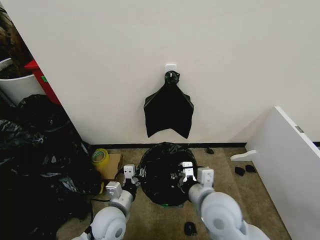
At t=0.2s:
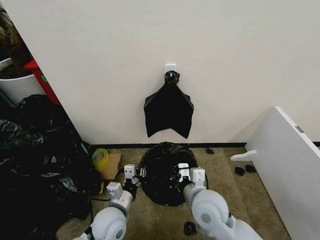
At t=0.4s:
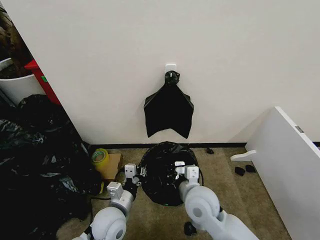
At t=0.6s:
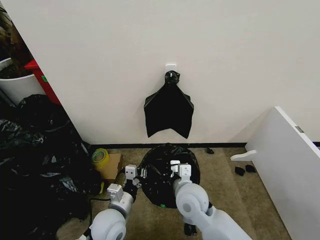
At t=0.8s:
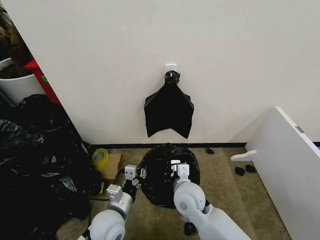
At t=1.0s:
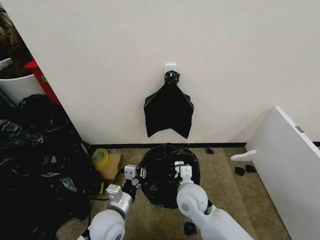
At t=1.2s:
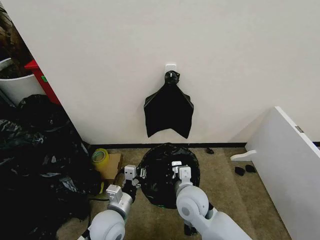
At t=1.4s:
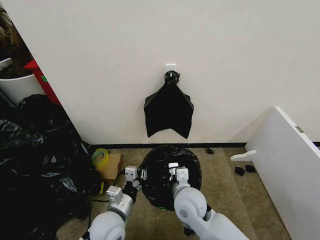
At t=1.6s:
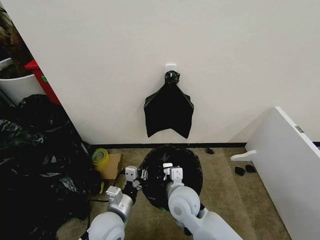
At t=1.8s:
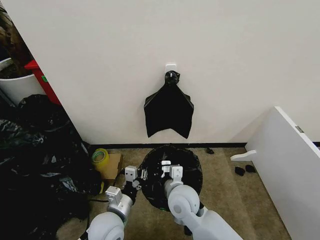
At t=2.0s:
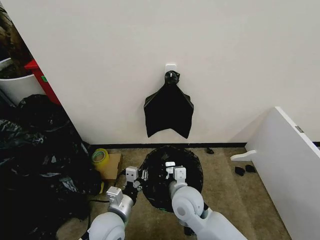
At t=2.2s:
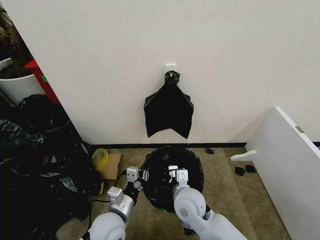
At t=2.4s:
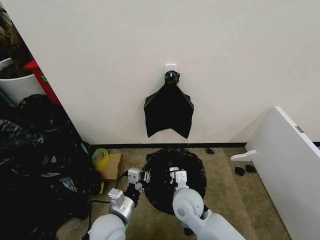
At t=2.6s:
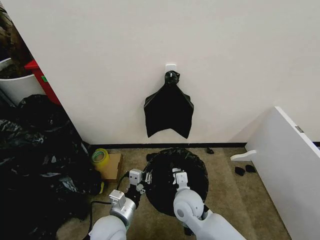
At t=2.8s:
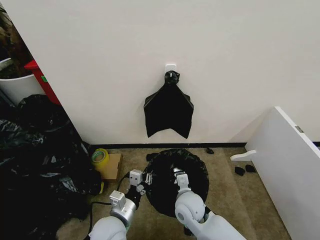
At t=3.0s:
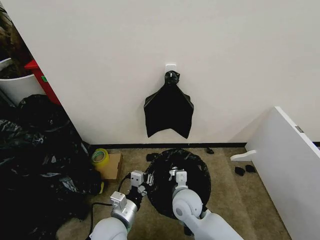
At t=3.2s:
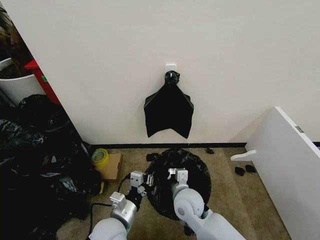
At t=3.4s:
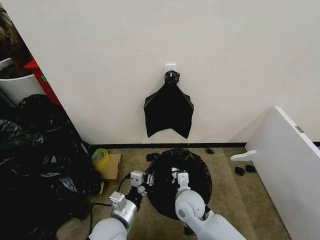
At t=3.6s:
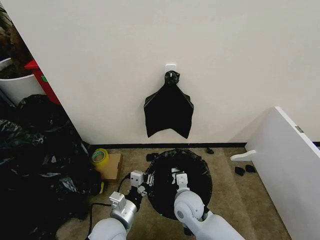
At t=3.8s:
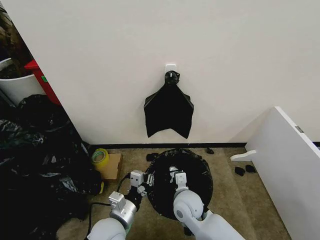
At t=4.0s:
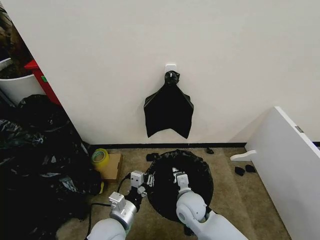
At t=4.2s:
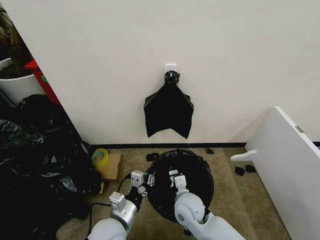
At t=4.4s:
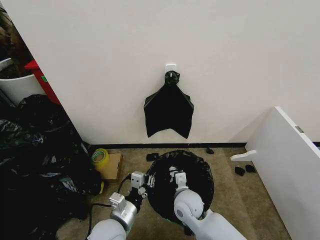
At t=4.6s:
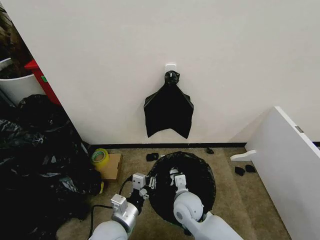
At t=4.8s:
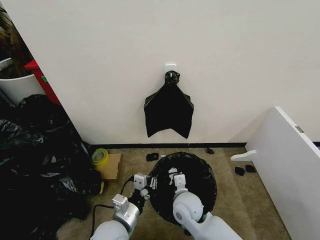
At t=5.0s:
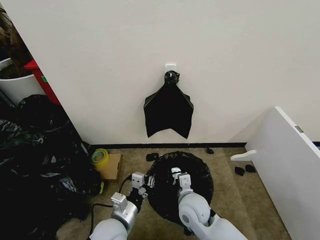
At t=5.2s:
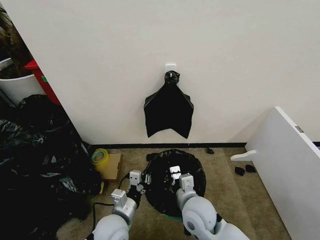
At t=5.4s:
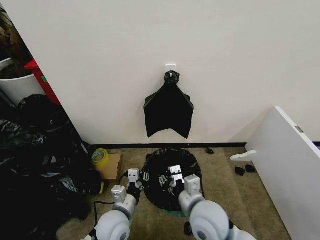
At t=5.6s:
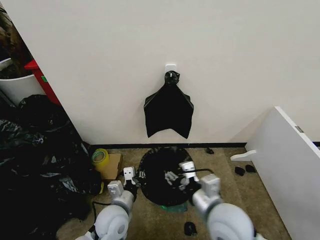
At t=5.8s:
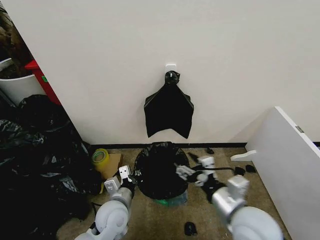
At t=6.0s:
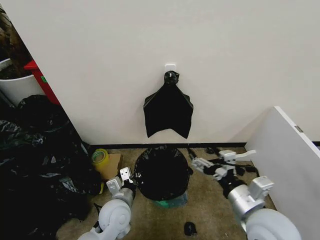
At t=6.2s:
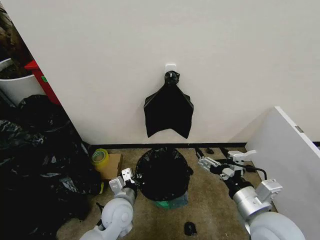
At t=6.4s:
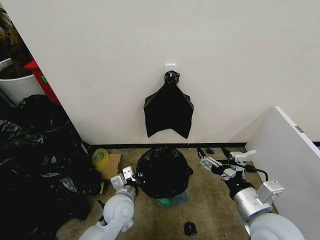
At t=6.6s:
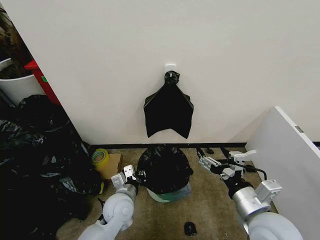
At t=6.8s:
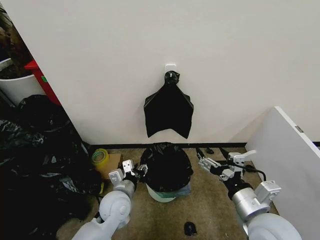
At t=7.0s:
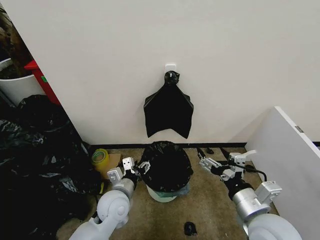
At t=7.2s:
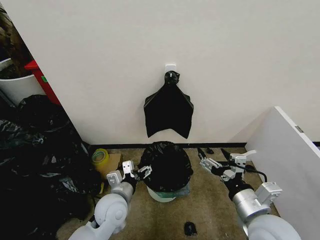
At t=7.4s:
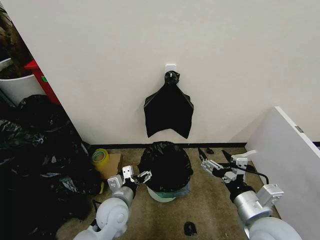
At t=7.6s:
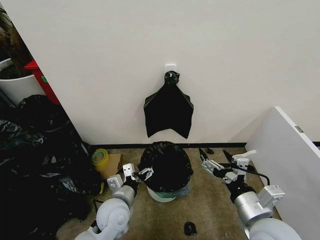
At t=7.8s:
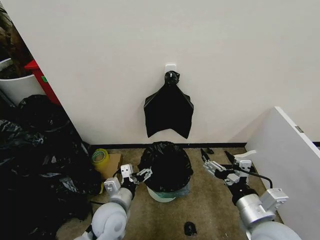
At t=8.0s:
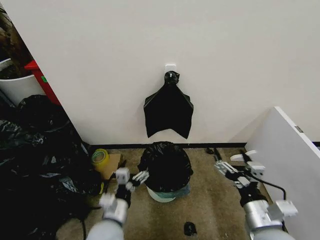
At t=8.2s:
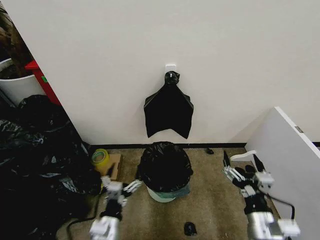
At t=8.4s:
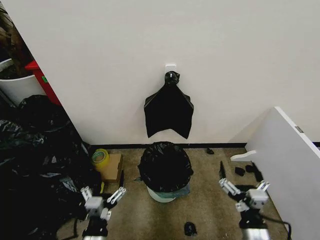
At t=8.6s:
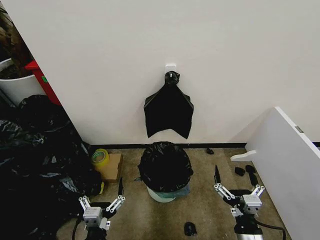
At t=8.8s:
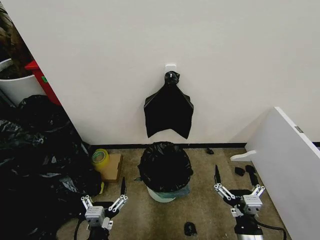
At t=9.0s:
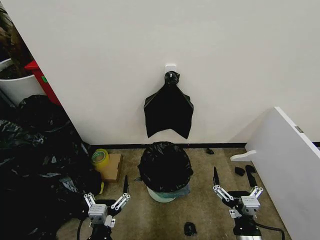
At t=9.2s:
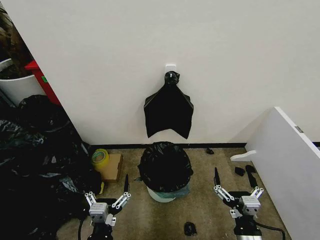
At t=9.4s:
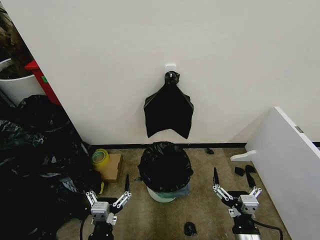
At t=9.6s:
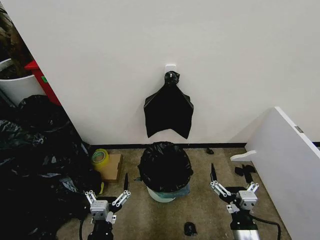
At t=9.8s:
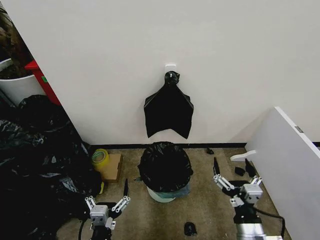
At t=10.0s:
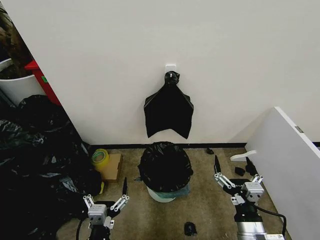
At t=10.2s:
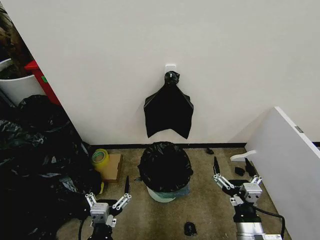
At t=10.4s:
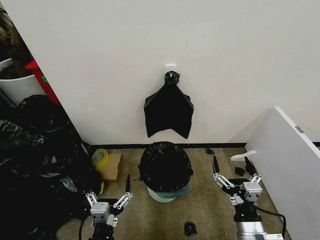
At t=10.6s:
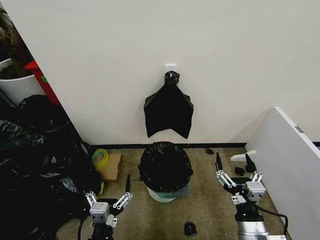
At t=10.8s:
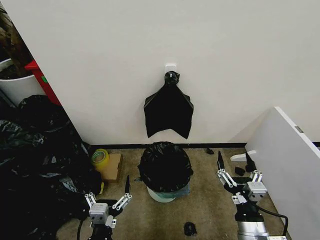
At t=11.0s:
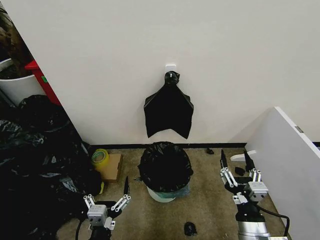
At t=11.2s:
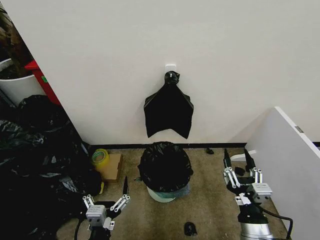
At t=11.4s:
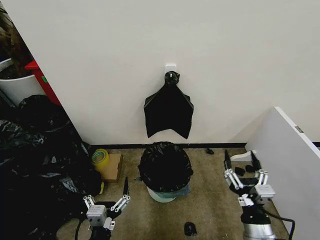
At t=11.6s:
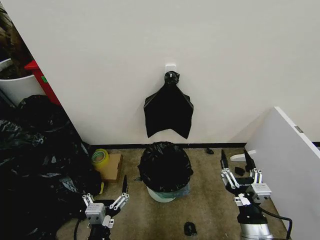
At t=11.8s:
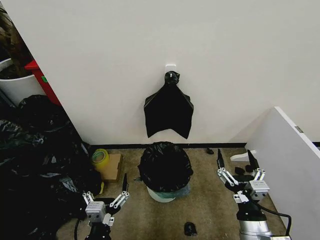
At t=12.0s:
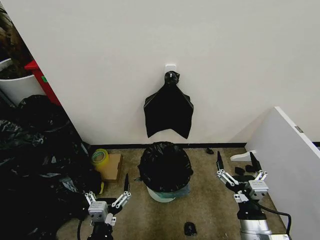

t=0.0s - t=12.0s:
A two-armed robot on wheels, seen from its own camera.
Task of the whole recording: Place the garbage bag over the trash bin.
t=0.0s - t=1.6s: The right gripper goes approximately 10 cm to the left and downward.
t=1.6s - t=3.0s: The grippers stay close to where they were, moving slightly.
t=3.0s - t=4.4s: The grippers make only small movements.
t=4.4s - t=6.0s: The left gripper moves forward, about 5 cm. The right gripper is displaced upward, to the right and backward by approximately 25 cm, and opens up.
t=6.0s - t=7.6s: The left gripper opens up.
t=7.6s - t=9.0s: The right gripper shifts roughly 15 cm downward and backward; the left gripper travels backward by roughly 15 cm.
t=9.0s - t=10.4s: The grippers stay close to where they were, moving slightly.
t=10.4s - t=12.0s: The right gripper closes, then reopens.

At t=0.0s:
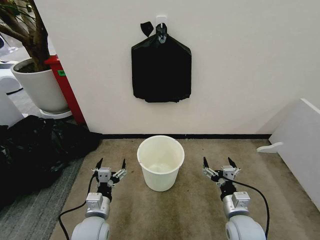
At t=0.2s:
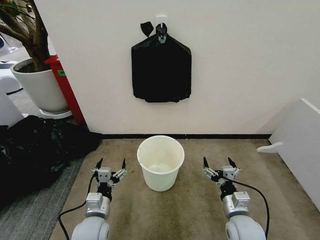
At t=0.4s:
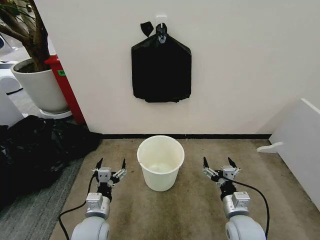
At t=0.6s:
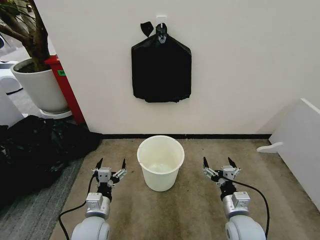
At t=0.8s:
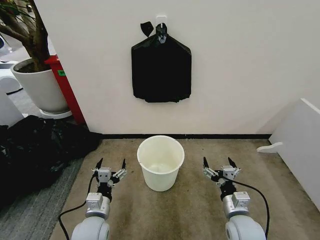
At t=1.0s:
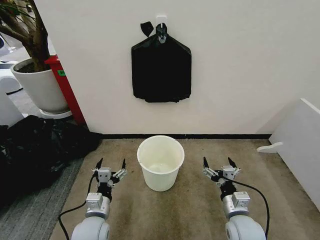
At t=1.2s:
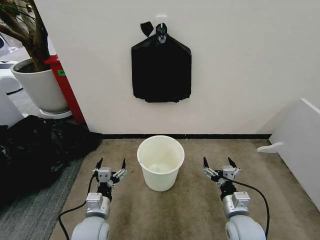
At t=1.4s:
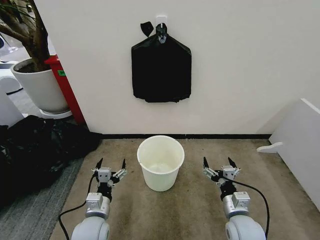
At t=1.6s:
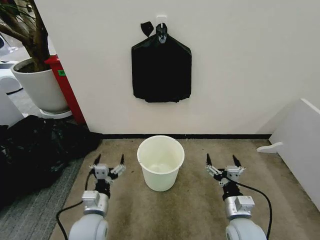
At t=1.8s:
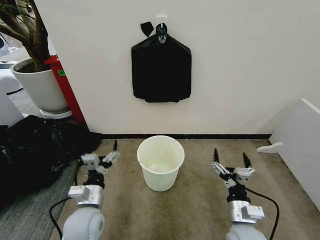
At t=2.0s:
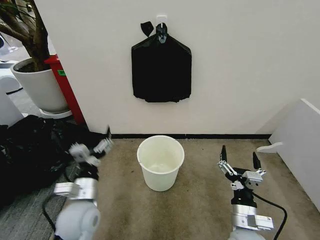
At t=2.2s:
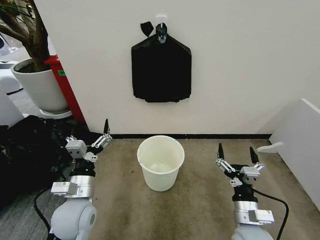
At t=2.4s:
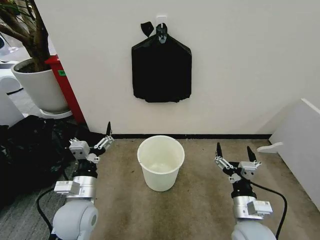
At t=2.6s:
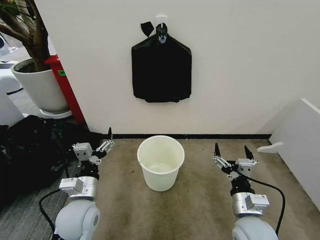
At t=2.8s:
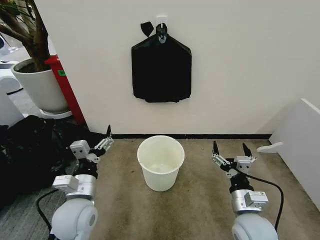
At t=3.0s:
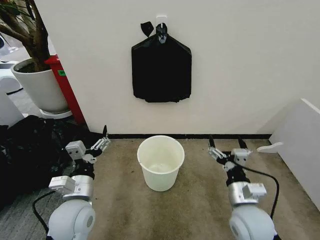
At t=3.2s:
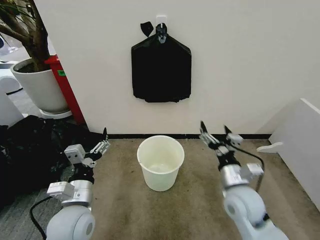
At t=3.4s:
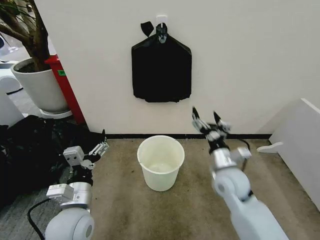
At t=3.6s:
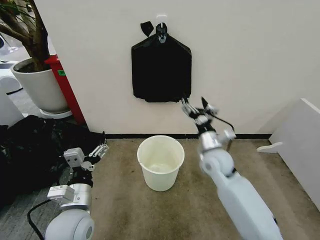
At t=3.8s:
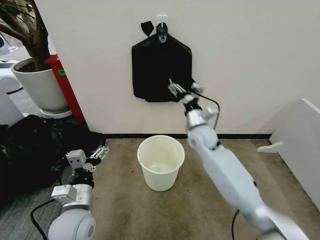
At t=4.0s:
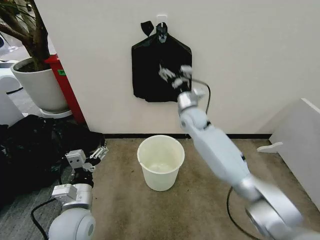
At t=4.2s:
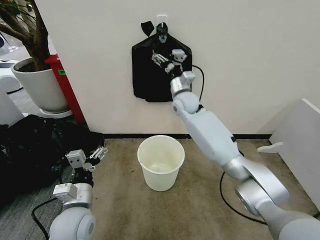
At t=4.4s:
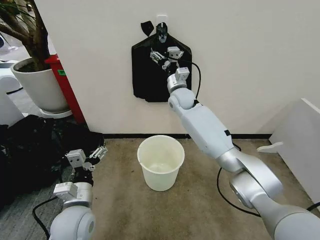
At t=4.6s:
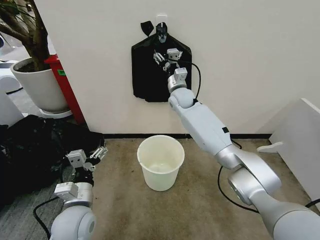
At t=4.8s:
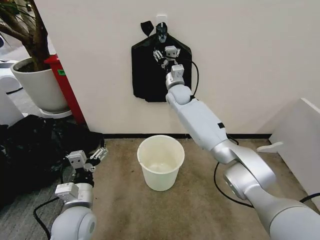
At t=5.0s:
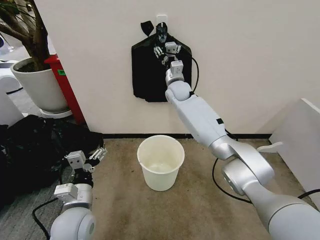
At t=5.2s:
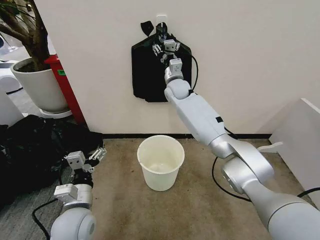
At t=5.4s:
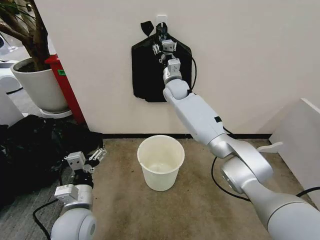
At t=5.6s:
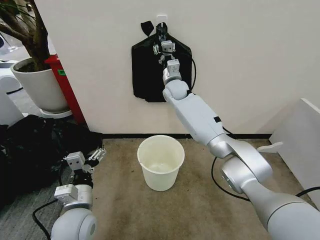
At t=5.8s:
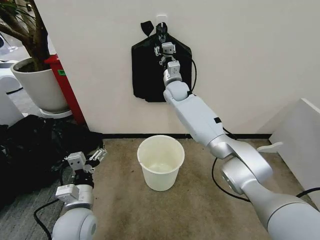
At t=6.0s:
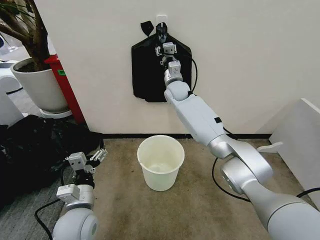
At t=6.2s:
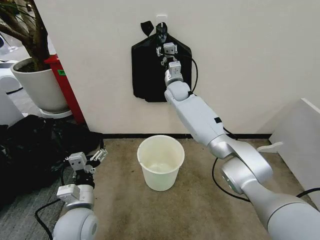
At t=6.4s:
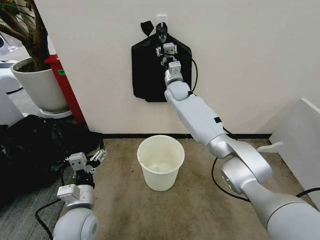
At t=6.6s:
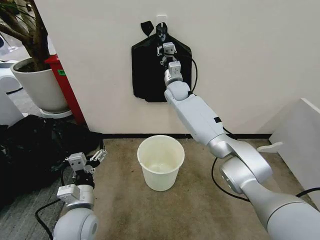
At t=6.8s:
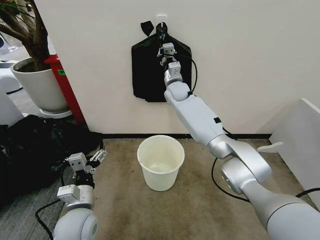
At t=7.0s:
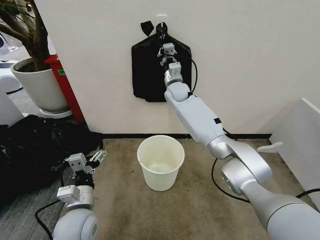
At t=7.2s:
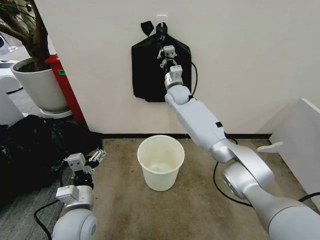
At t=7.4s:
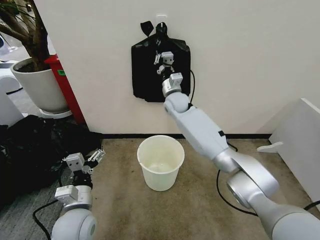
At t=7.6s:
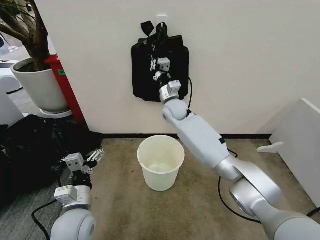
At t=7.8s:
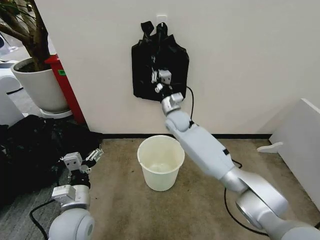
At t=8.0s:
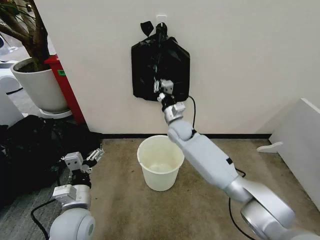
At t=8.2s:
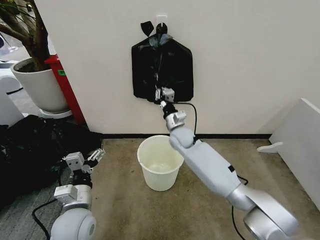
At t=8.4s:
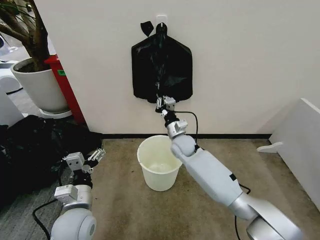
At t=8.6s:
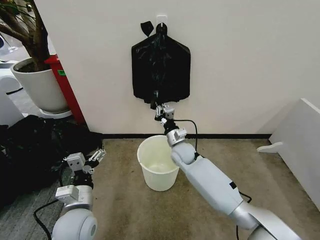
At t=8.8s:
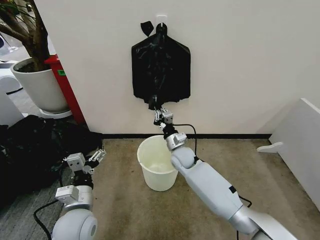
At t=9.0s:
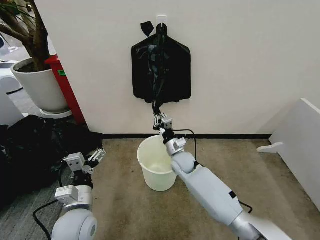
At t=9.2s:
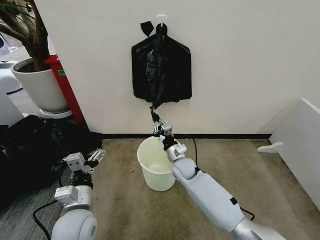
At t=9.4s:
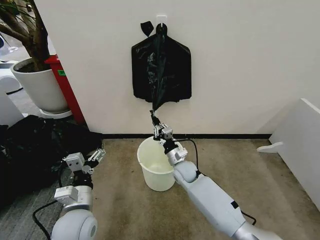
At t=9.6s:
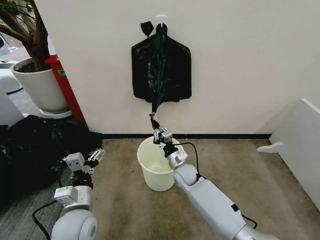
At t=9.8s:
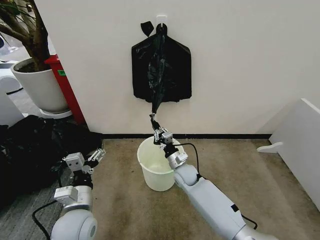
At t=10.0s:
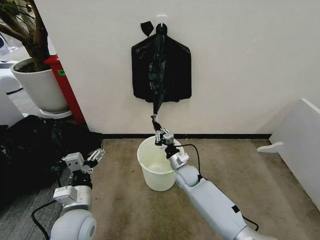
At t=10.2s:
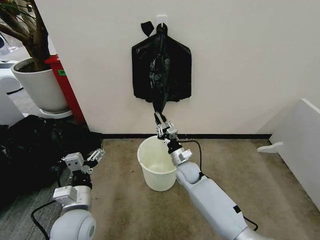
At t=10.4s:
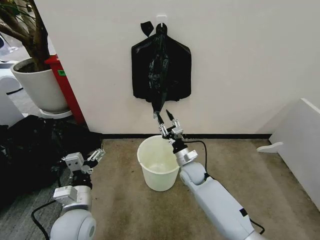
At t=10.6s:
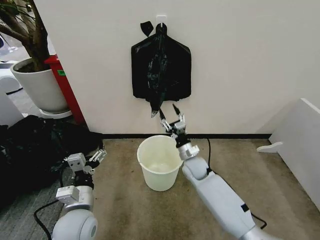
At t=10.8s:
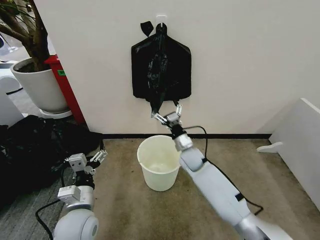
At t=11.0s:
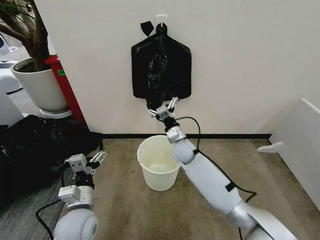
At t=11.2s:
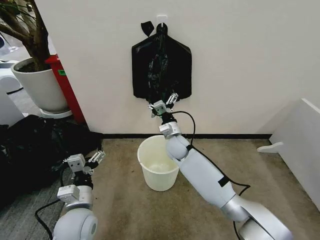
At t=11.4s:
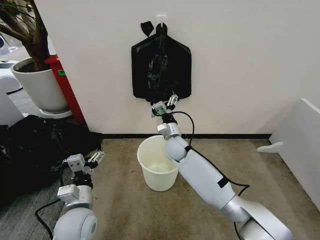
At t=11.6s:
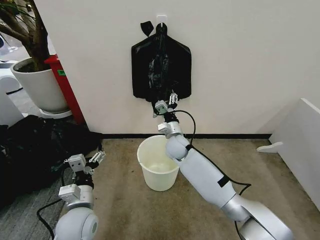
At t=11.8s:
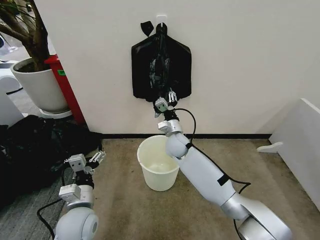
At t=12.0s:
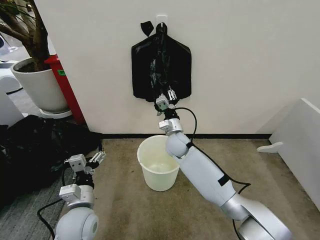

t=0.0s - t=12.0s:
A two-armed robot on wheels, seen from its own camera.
Task of the whole recording: Place the garbage bag over the trash bin.
t=1.6s - t=3.0s: The grippers both shift upward by approximately 10 cm.
t=3.0s - t=4.4s: The right gripper travels forward and to the left by some 40 cm.
t=4.4s - t=6.0s: The right gripper closes.
t=6.0s - t=7.6s: The right gripper goes some 5 cm backward, and closes up.
t=7.6s - t=9.0s: The right gripper moves downward and backward, some 20 cm.
t=9.0s - t=10.4s: The right gripper ends up roughly 5 cm from where it was, and opens up.
t=10.4s - t=12.0s: The right gripper travels upward, forward and to the left by some 15 cm, and opens, then closes again.
